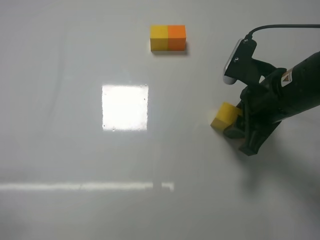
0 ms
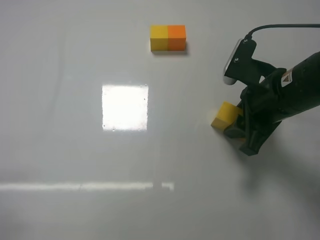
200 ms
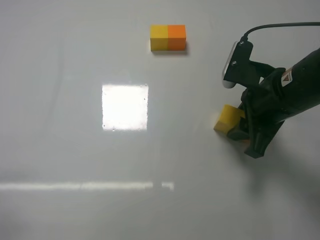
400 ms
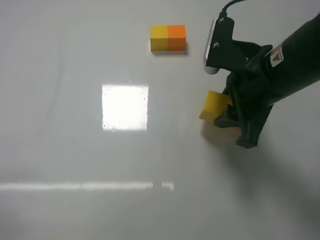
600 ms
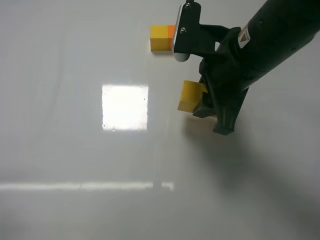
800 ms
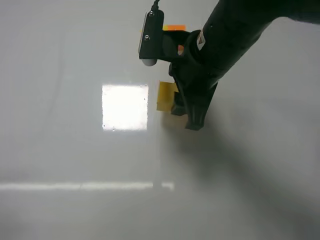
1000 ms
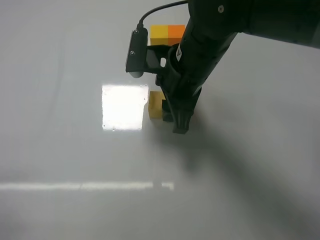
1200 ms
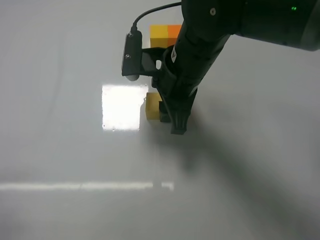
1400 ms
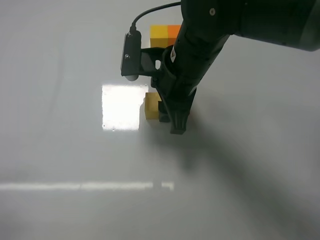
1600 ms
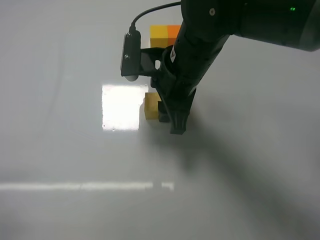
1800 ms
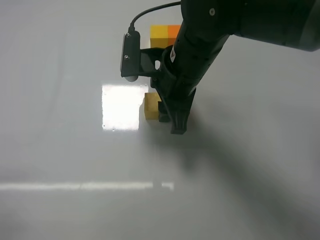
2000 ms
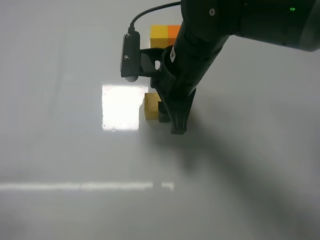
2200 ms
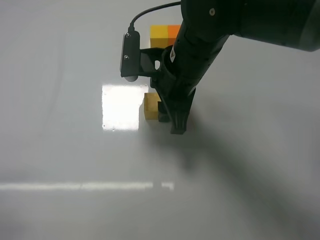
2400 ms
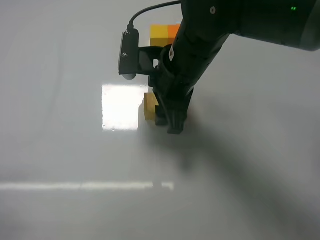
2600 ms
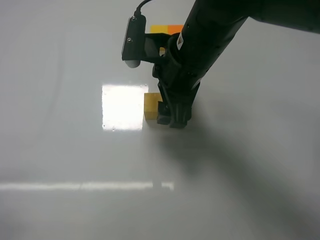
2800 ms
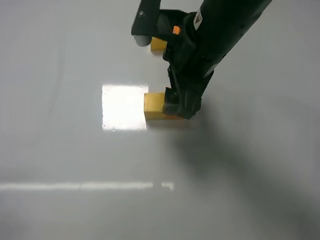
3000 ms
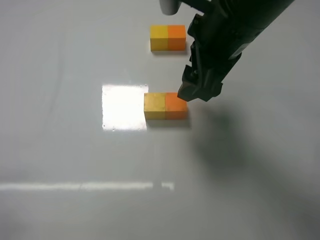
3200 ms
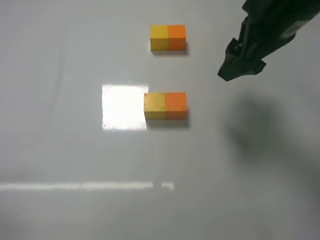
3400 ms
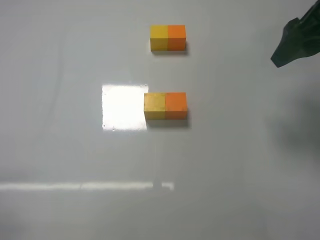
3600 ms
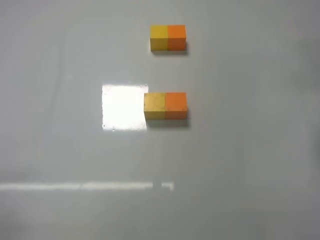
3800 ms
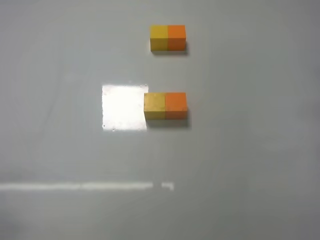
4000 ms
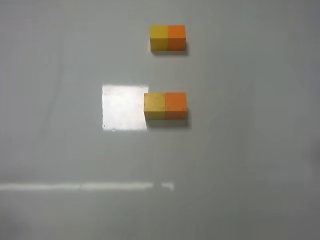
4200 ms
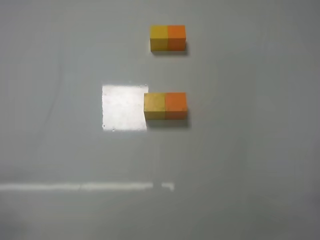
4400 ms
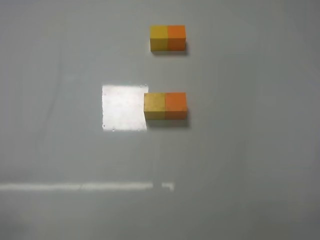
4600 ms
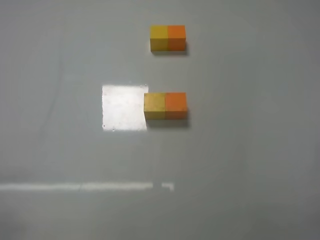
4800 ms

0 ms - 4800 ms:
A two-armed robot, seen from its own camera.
Task of the whole recording: According to the building block template in front, assemble the scattered blocks together.
Step, 0 ms - 2800 ms: Put the yellow cube and orange cube in the center of the table with the right gripper.
0 ms - 1600 ms: The right gripper travels to the left by about 15 cm.
1600 ms - 3200 ms: The right gripper travels upward and to the right by some 10 cm, and opens up.
3200 ms - 4800 ms: The right gripper travels backward, to the right and downward by some 35 cm.
